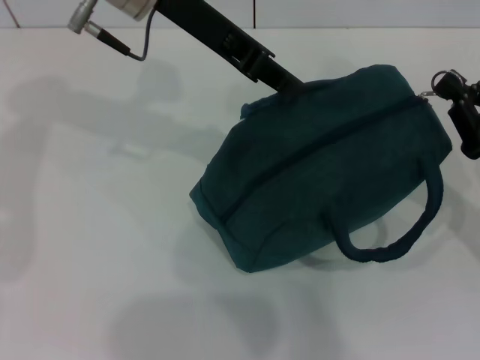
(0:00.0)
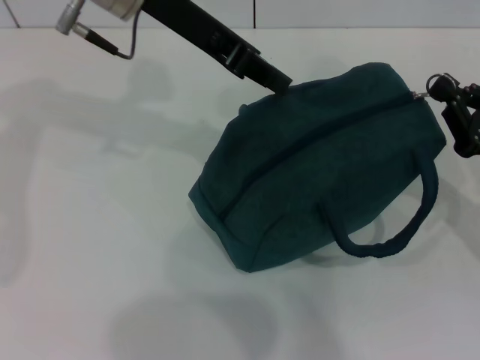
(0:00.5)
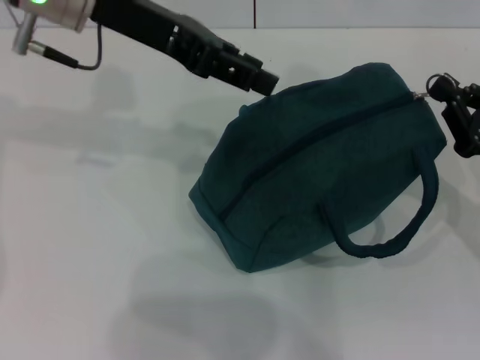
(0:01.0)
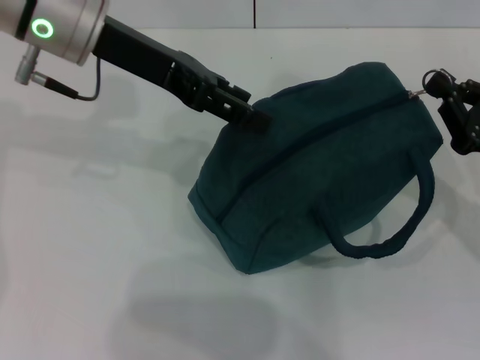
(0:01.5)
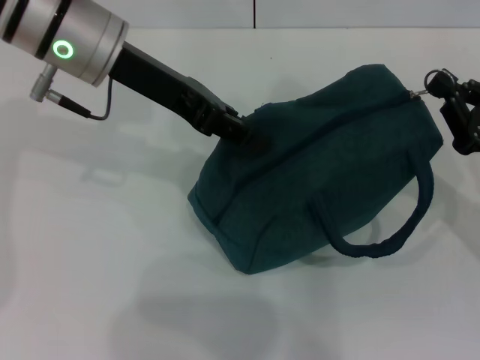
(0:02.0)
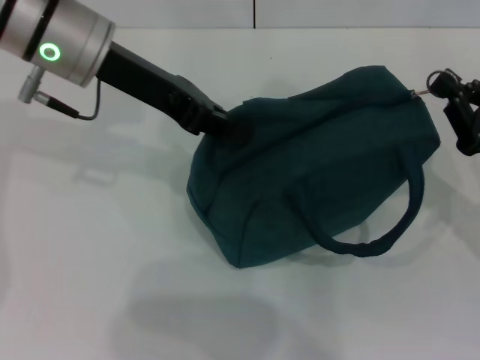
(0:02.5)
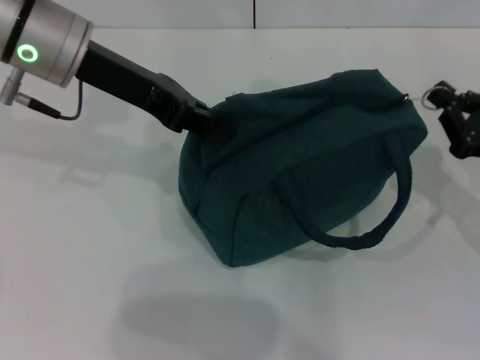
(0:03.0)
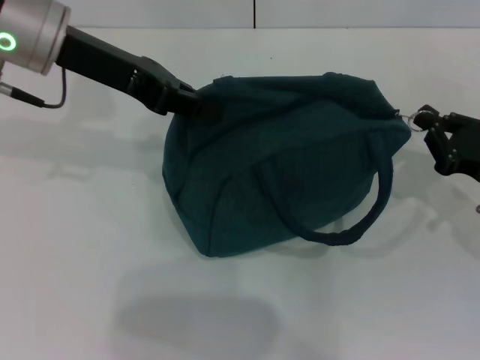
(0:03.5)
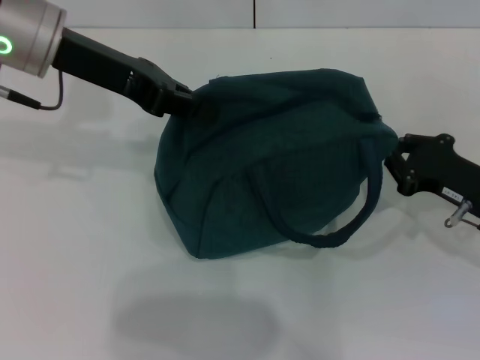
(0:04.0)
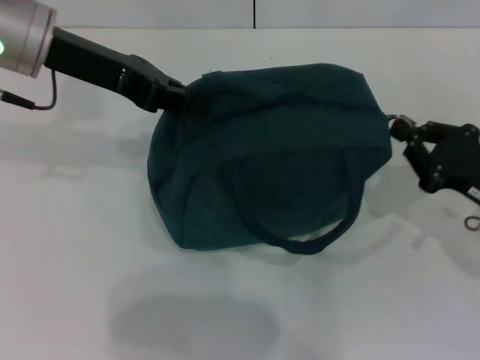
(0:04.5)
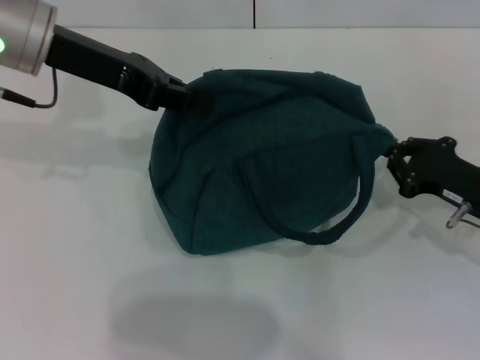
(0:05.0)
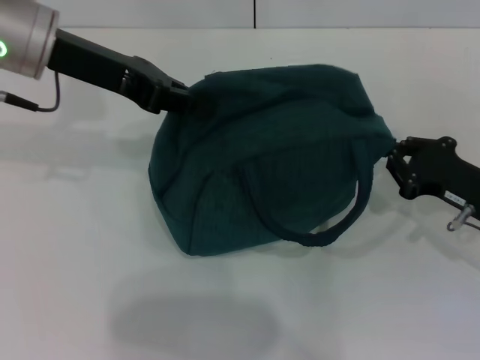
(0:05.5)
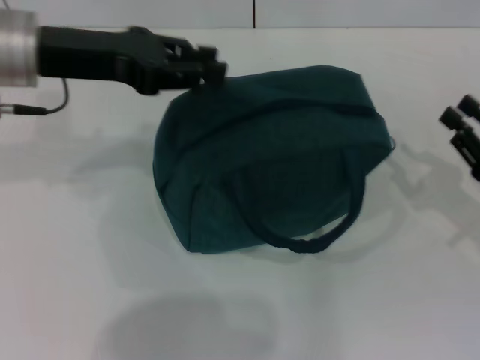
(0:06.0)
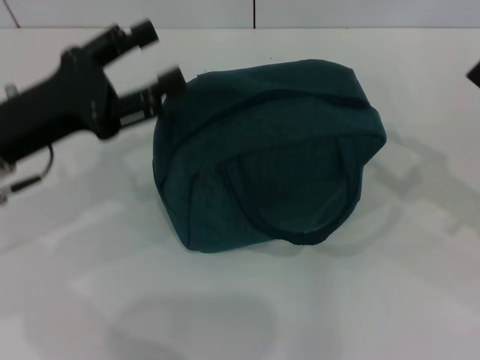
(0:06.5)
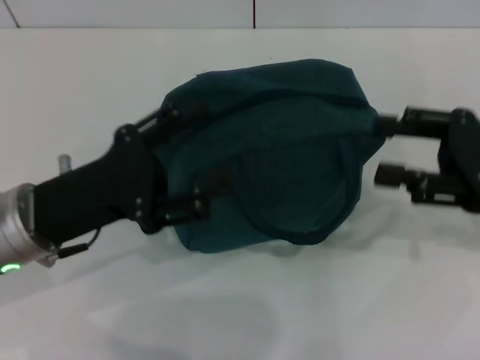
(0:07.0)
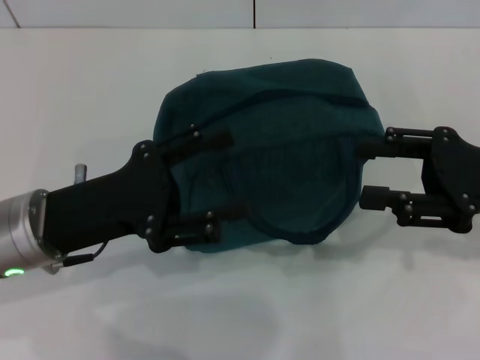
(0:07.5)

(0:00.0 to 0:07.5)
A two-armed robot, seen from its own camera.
Step, 0:00.0 - 0:05.5: Zip up the lunch bag with your right hand.
0:00.0 - 0:02.0: The left gripper shifts by some 5 cm, and opens.
0:02.0 - 0:04.0: The left gripper closes.
0:04.0 - 0:05.5: The grippers make only small movements.
0:05.5 - 0:07.5: The left gripper goes about 20 cm backward and downward, and opens up. The right gripper travels upward by approximately 10 cm, and opens up.
